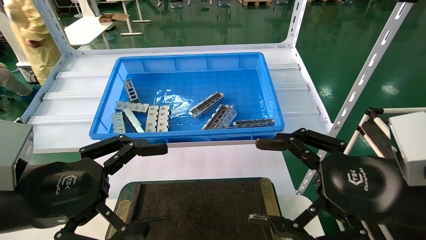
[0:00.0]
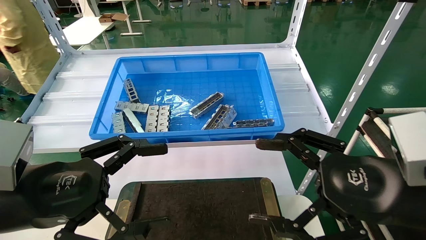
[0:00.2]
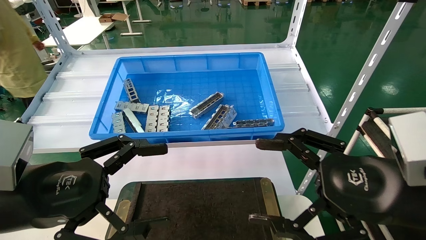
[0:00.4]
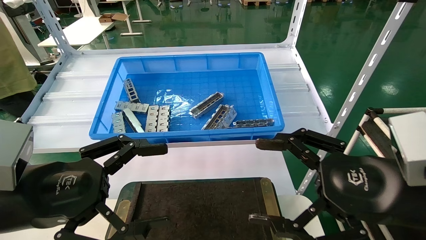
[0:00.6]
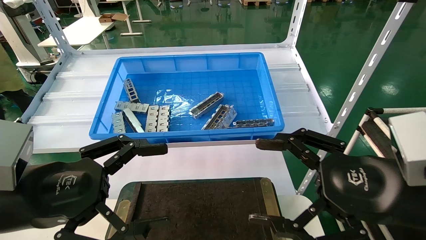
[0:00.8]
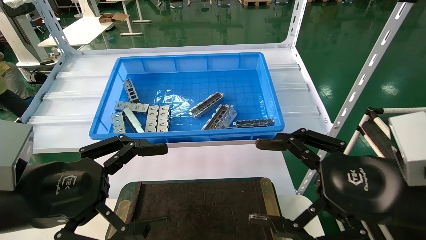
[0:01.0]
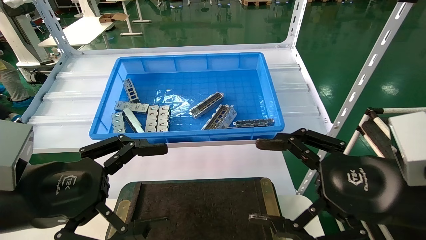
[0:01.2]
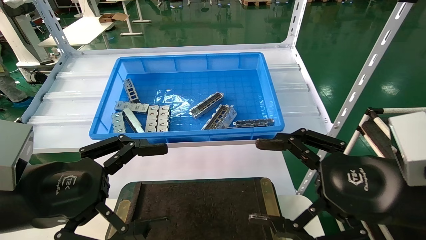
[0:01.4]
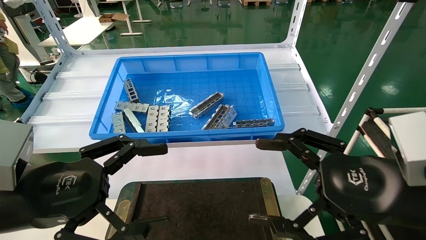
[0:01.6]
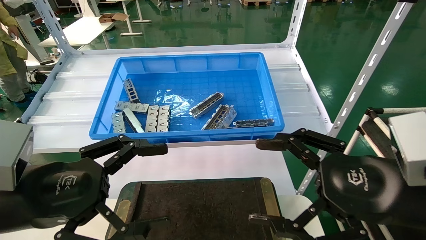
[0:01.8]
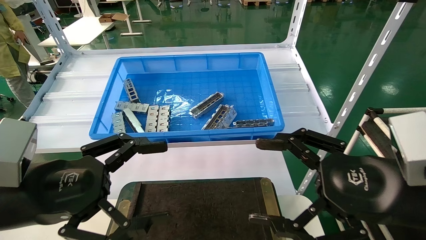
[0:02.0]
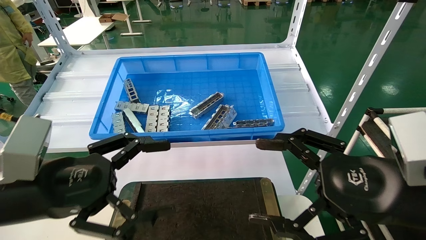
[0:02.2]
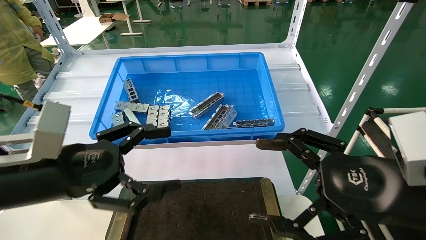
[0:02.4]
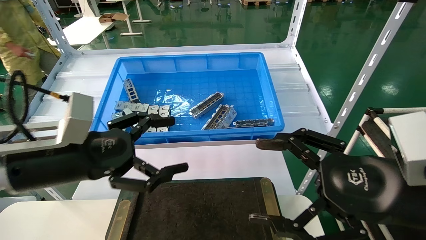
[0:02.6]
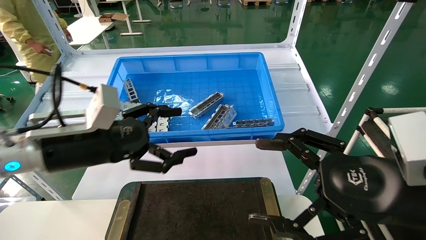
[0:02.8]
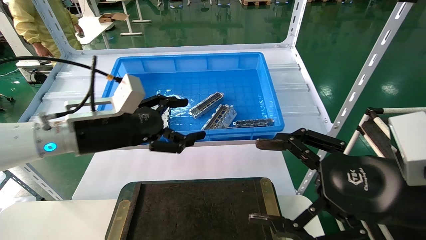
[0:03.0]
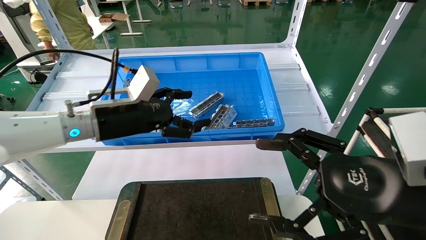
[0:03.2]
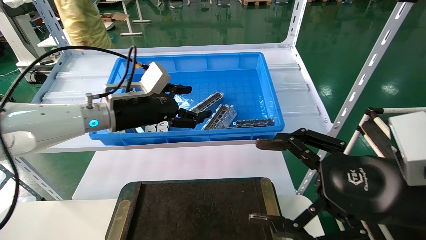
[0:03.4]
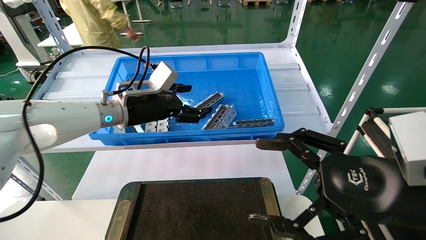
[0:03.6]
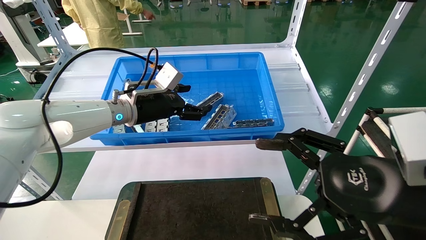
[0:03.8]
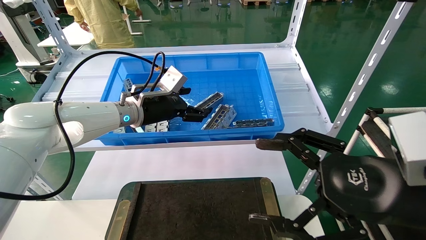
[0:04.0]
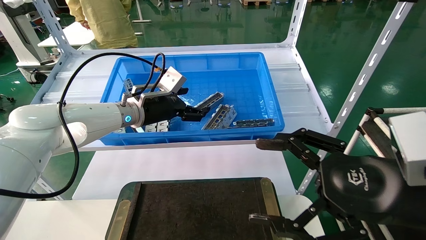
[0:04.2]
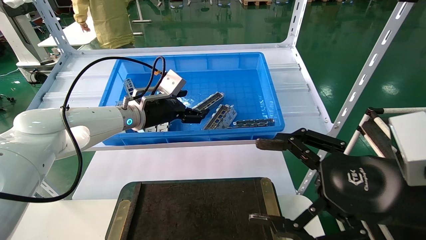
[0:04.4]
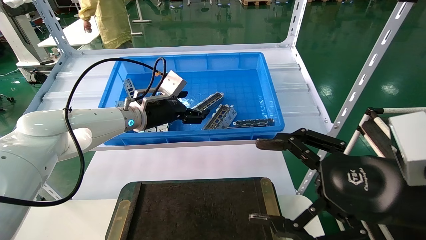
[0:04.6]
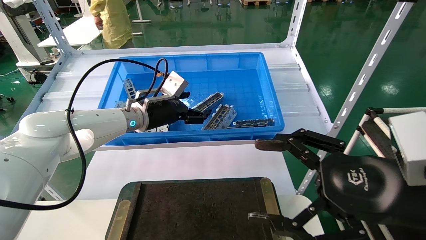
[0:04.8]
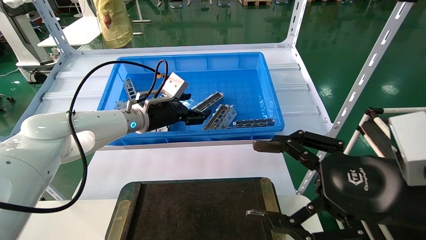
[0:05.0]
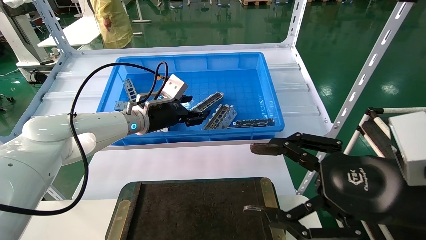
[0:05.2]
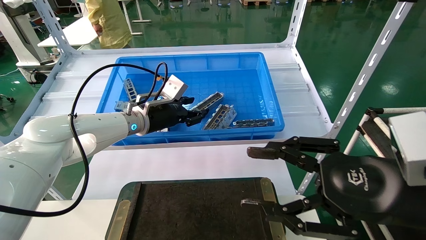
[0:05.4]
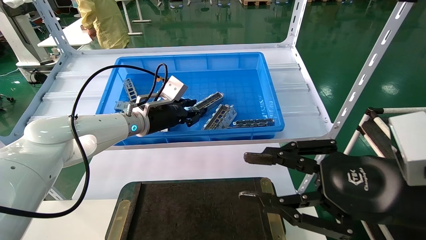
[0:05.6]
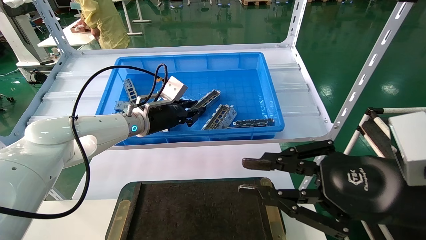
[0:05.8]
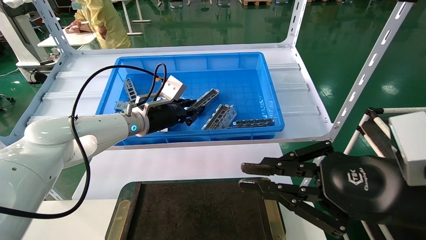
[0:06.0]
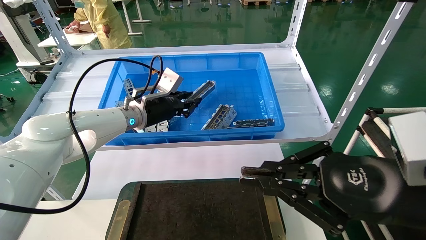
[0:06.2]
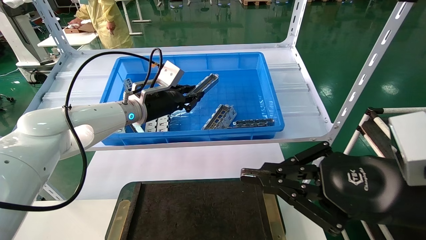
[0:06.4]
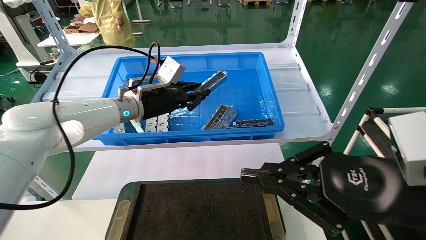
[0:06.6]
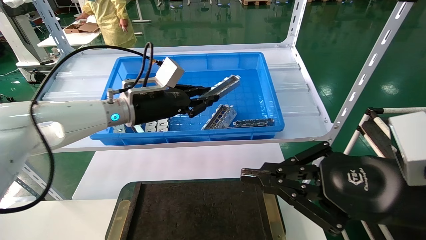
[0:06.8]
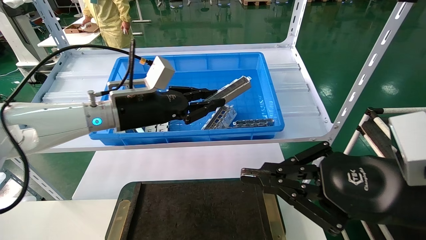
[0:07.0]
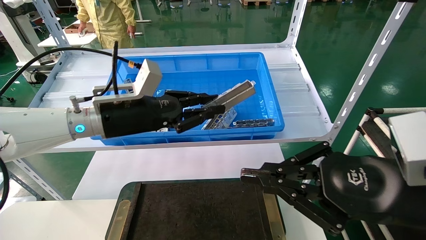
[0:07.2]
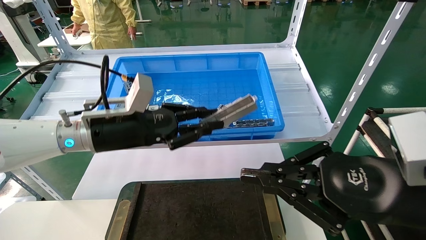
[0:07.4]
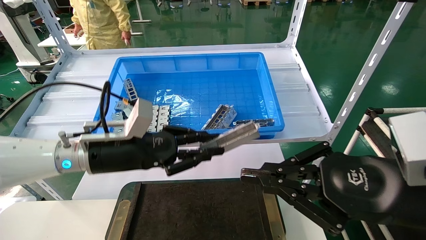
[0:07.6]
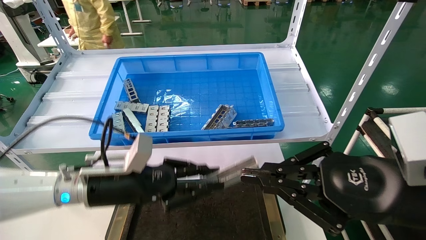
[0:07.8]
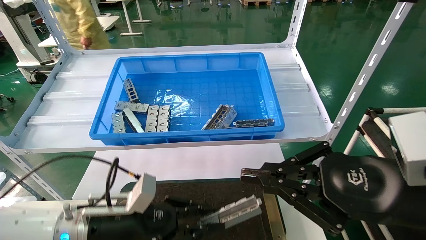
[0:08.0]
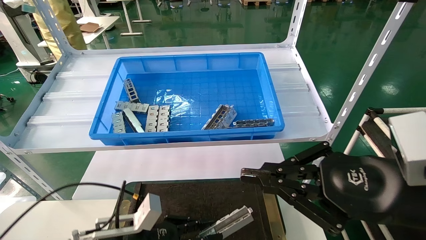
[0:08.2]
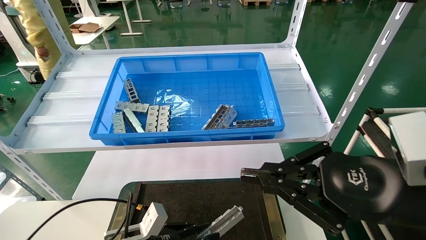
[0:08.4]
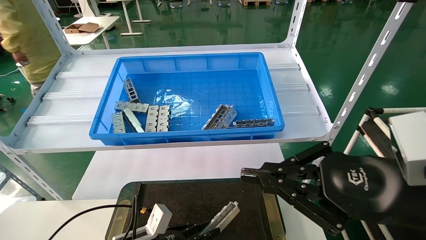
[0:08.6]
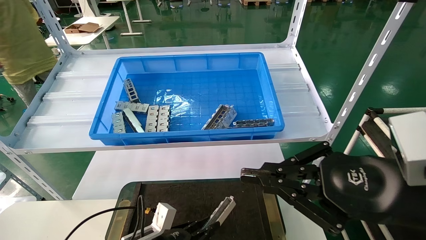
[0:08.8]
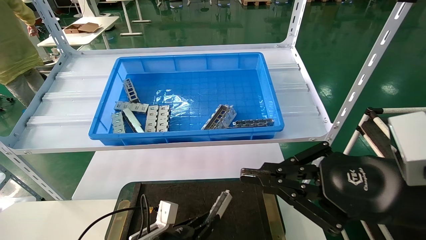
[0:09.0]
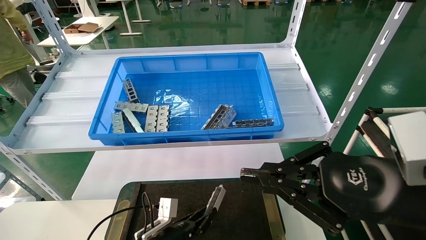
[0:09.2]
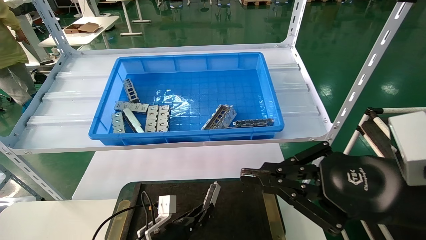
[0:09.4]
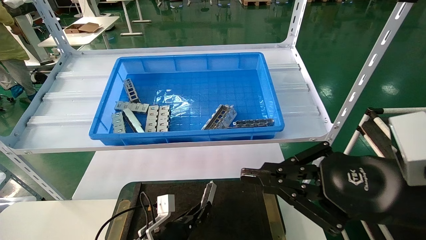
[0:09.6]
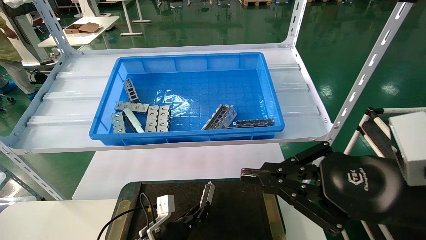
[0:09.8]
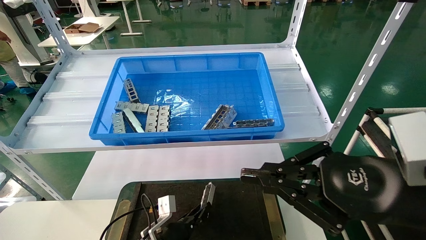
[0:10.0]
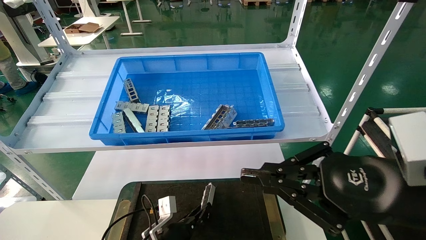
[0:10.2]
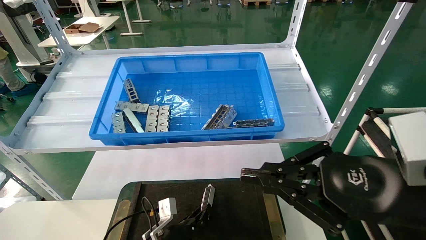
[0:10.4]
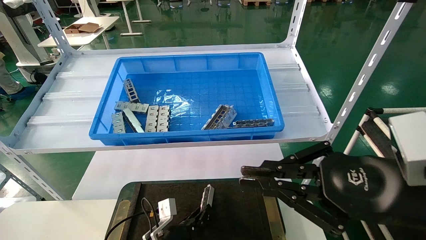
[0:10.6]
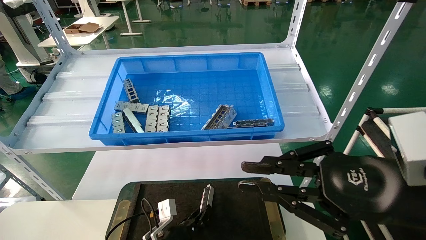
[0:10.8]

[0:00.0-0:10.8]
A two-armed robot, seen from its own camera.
Task of the whole recording: Grasp the part with one hand and place it on the black container.
Step, 0:02.8 to 0:06.6: Pick up the front USB bracket from the feeding area.
0:00.0 to 0:01.6: Both grippers stay put.
0:01.6 to 0:03.0: The left gripper goes some 15 cm forward.
0:03.0 to 0:04.6: The left gripper heads forward, covering some 15 cm.
0:04.6 to 0:06.2: The left gripper closes its fingers; the right gripper closes up.
0:06.2 to 0:07.8: The left gripper shifts approximately 20 cm backward and downward.
0:07.8 to 0:09.2: The left gripper moves downward, roughly 20 cm.
0:09.2 to 0:10.8: The grippers stay close to where they were, moving slightly.

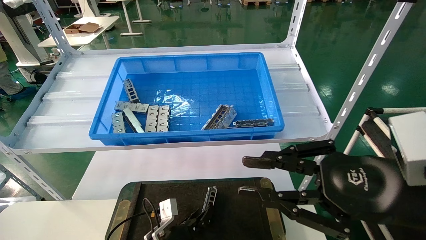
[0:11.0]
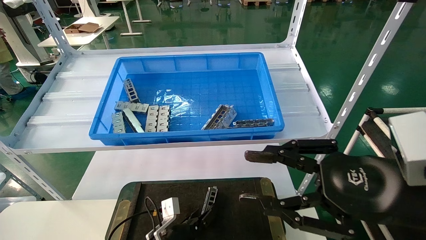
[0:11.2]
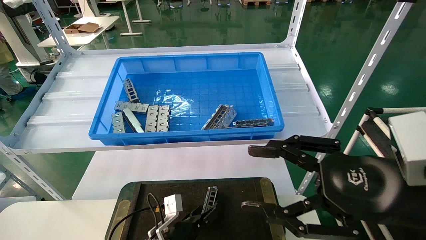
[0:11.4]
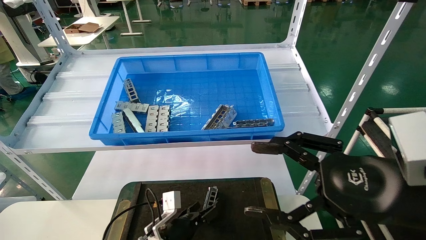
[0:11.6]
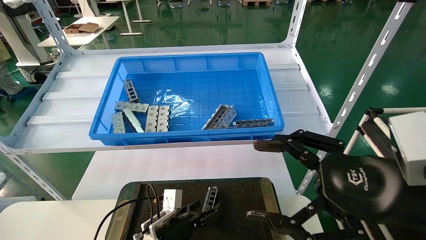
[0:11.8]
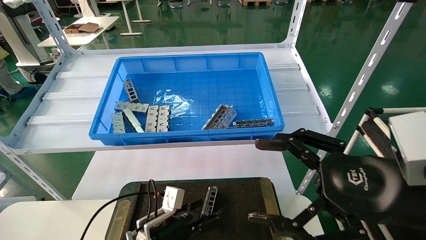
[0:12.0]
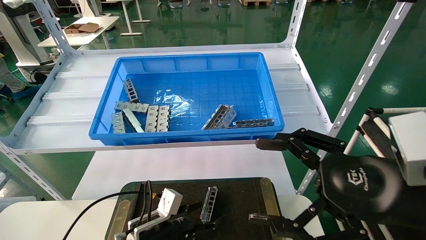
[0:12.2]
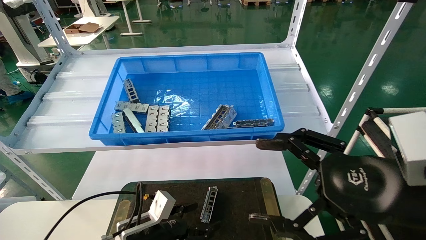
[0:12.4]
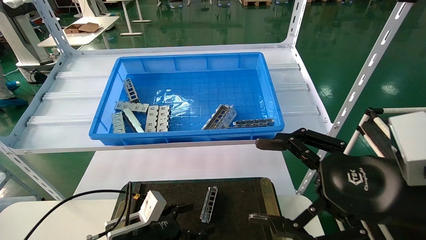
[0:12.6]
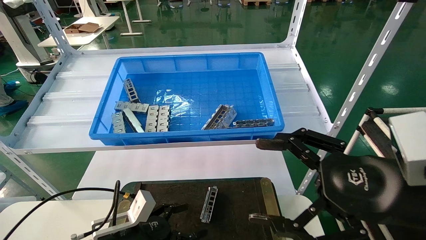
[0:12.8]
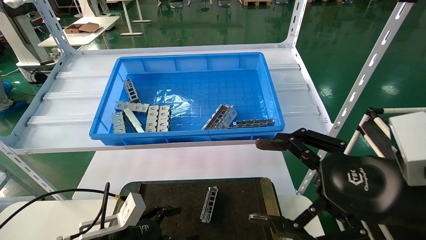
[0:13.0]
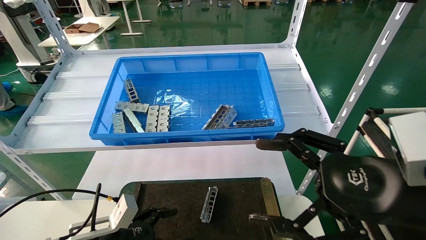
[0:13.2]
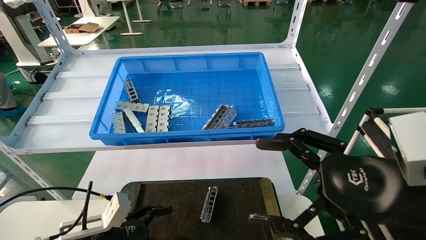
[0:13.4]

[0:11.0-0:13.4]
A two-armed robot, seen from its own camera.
Task of the whole recording: Grasp the part with one hand and place it on the black container.
0:11.0 to 0:12.2: The right gripper opens up. The left gripper travels upward by approximately 5 cm, and opens its fingers.
0:12.2 to 0:13.4: The left gripper shifts some 10 cm to the left and backward.

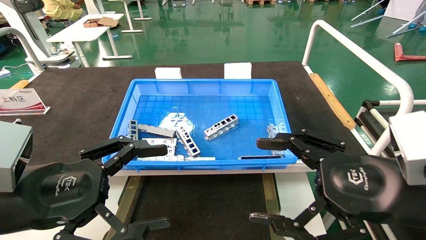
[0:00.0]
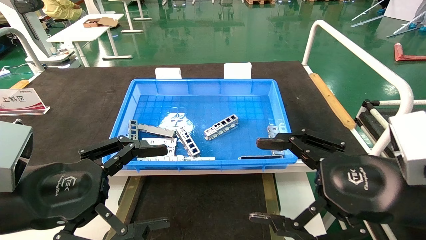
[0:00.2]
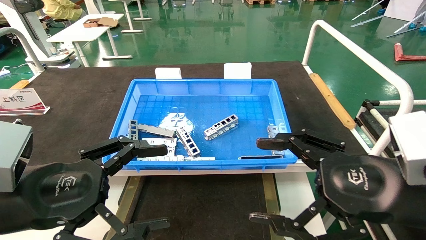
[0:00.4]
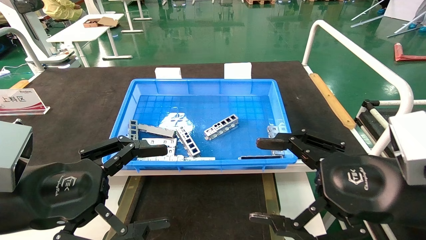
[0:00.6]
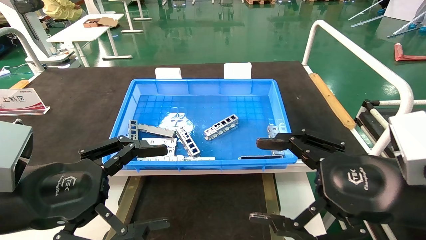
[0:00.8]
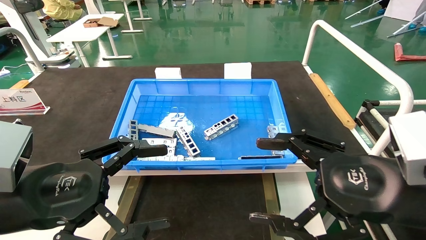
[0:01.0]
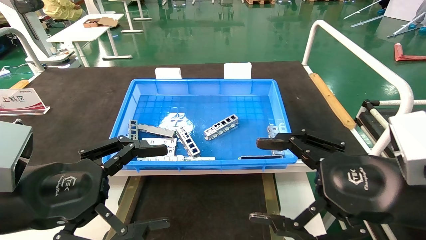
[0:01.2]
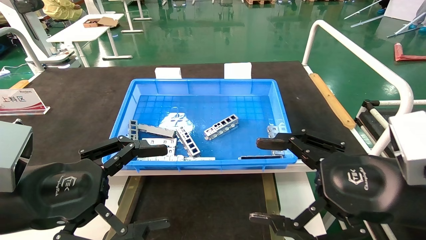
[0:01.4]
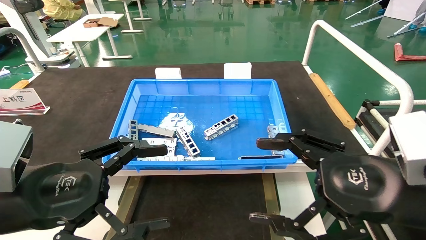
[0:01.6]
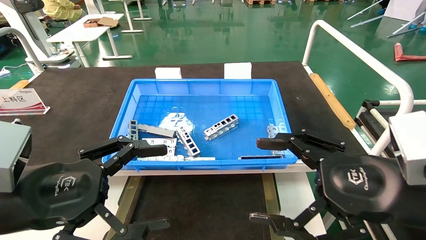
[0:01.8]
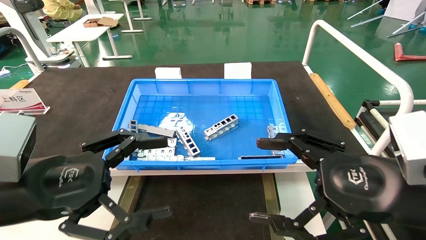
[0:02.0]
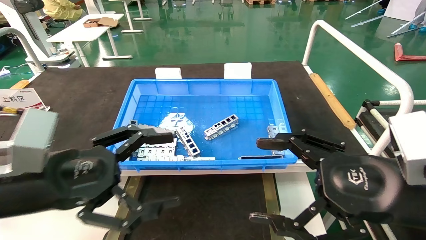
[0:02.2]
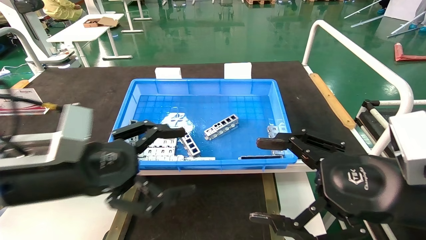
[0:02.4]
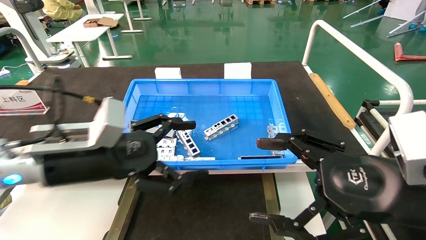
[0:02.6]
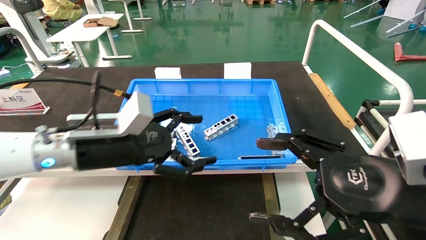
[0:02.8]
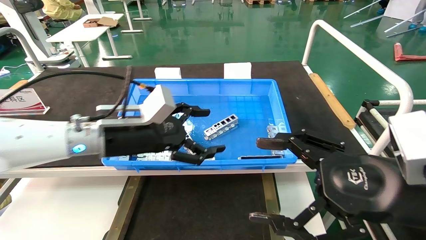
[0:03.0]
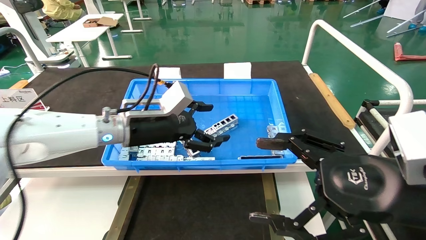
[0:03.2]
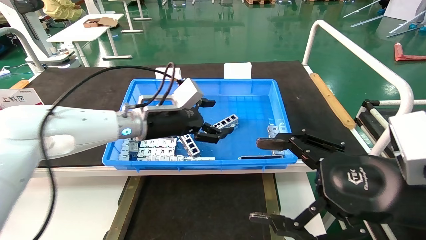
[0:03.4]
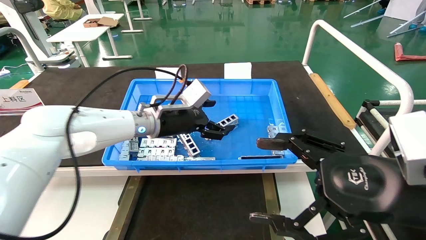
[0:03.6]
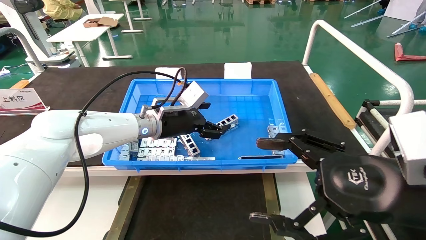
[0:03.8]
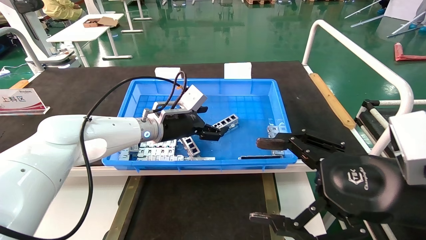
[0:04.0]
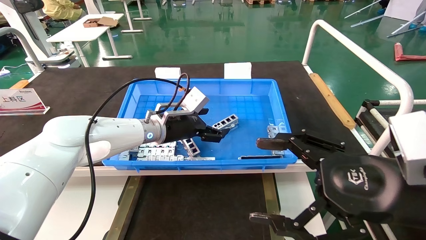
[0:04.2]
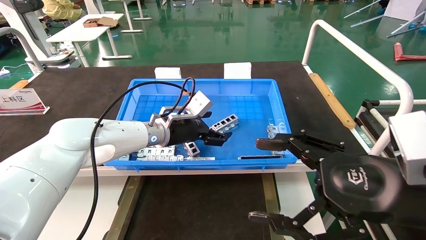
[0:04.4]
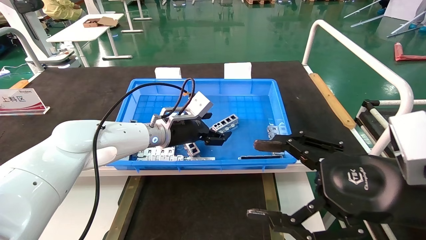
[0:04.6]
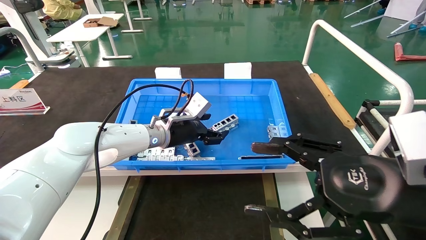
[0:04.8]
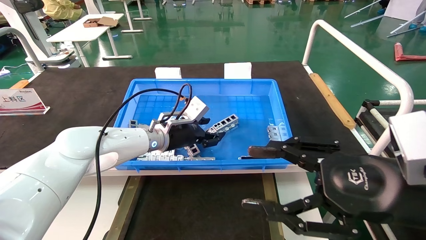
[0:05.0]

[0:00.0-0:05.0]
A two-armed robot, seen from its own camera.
Task of the whole recording: Grasp the part with one hand and place it on the black container.
0:00.0 to 0:01.6: Neither gripper changes place.
0:01.6 to 0:03.4: The left gripper travels forward and to the right by some 25 cm.
0:03.4 to 0:05.0: The left gripper shifts some 10 cm downward and forward.
